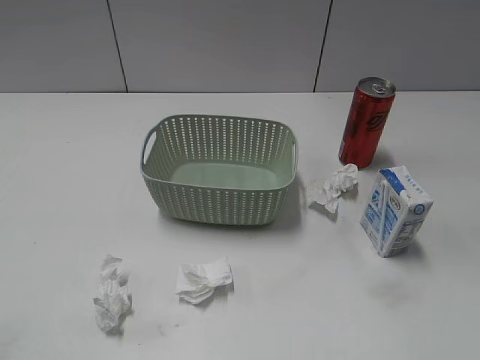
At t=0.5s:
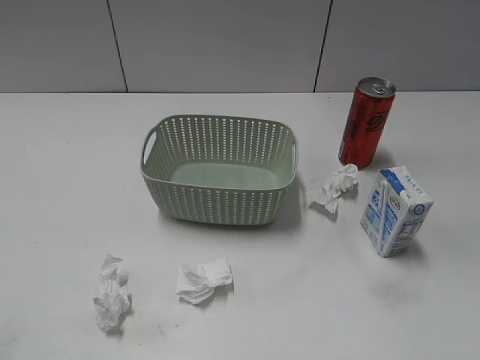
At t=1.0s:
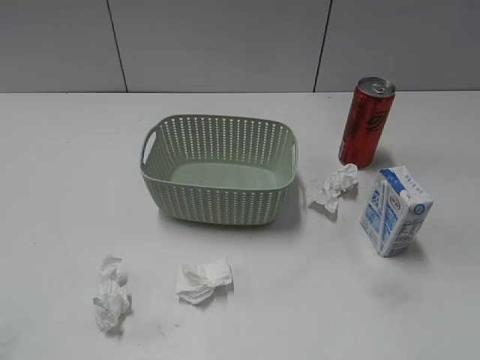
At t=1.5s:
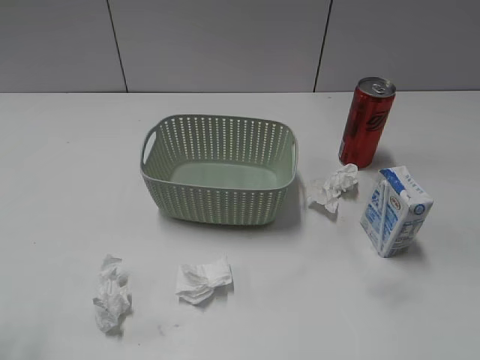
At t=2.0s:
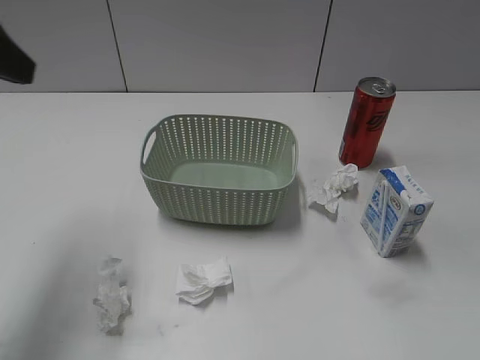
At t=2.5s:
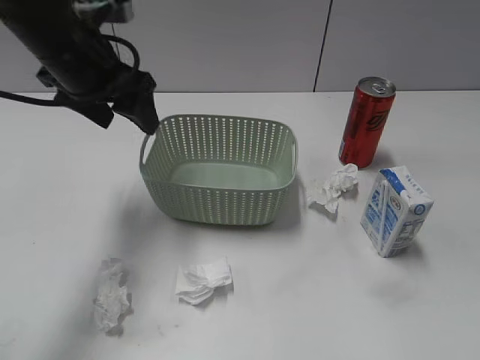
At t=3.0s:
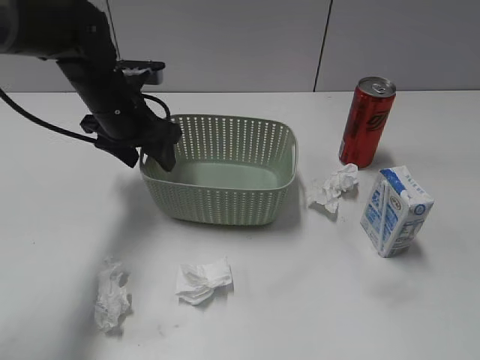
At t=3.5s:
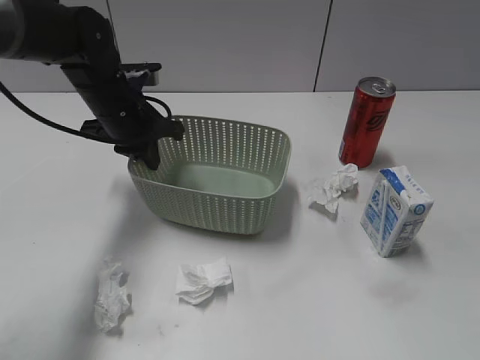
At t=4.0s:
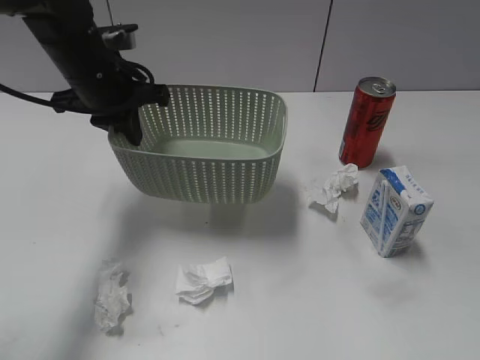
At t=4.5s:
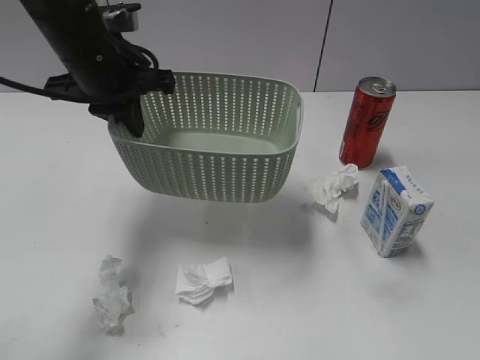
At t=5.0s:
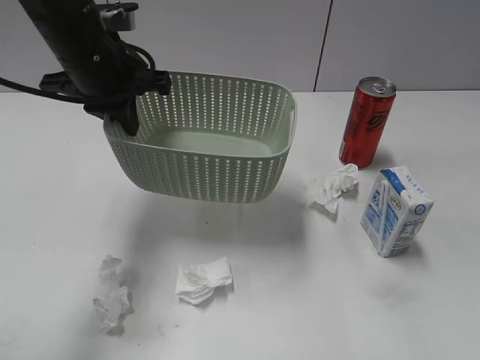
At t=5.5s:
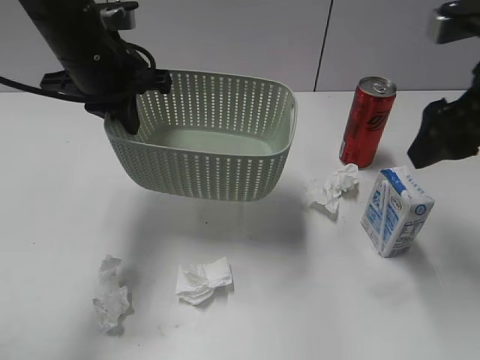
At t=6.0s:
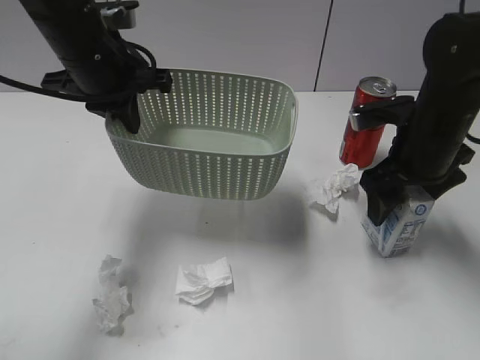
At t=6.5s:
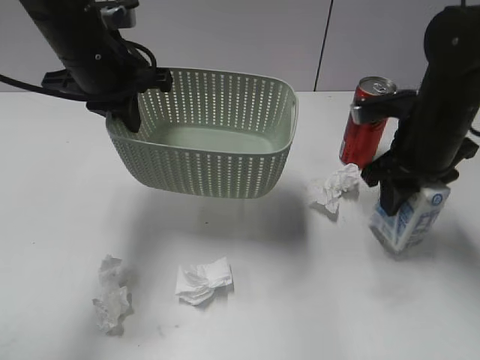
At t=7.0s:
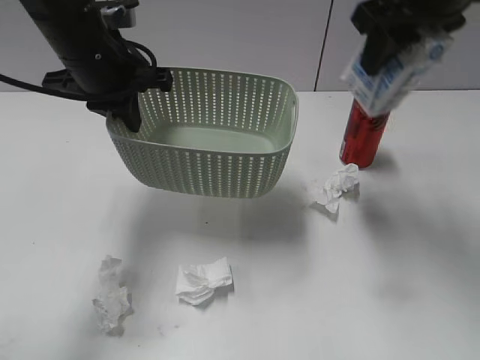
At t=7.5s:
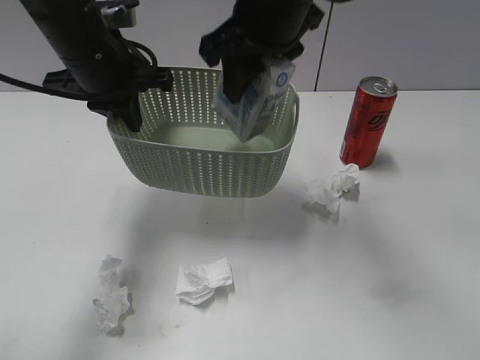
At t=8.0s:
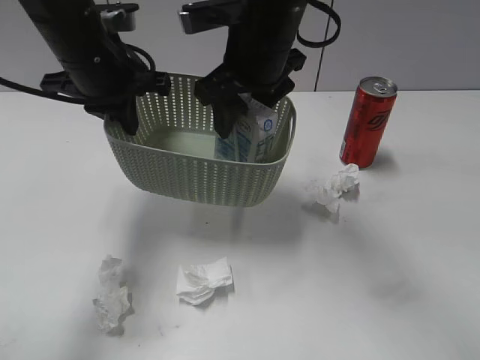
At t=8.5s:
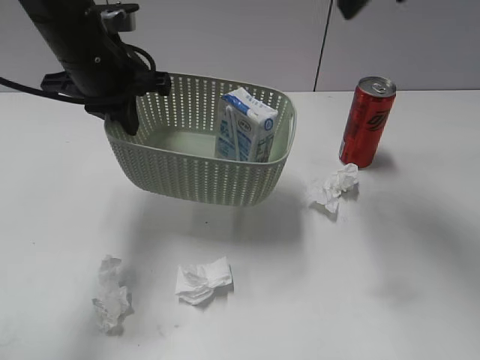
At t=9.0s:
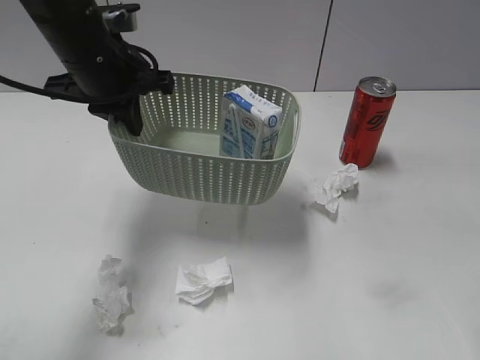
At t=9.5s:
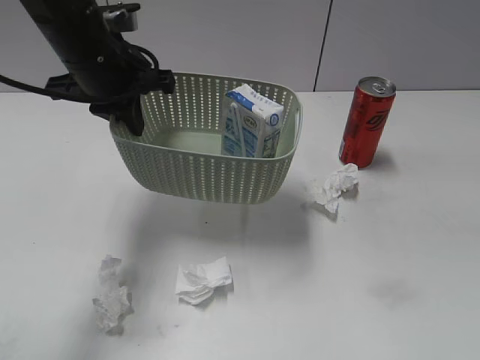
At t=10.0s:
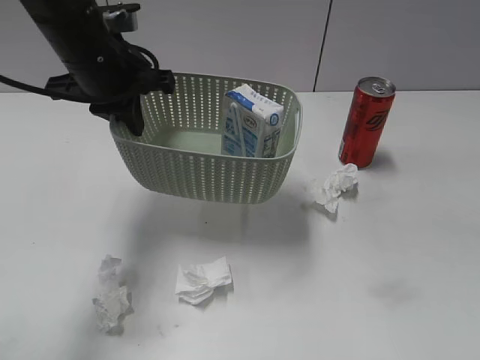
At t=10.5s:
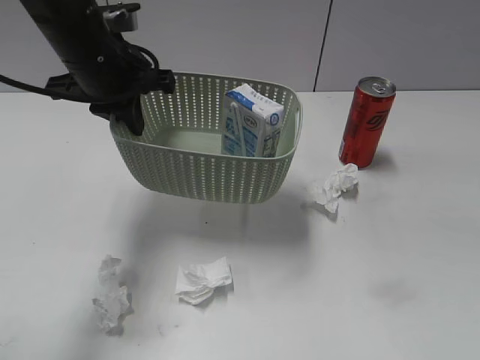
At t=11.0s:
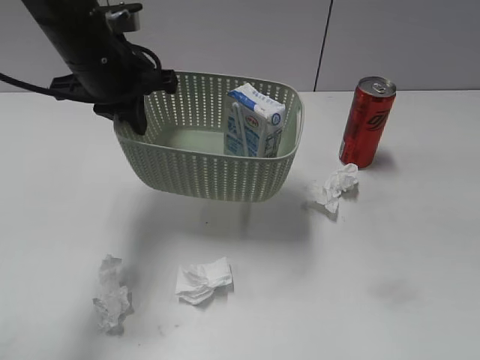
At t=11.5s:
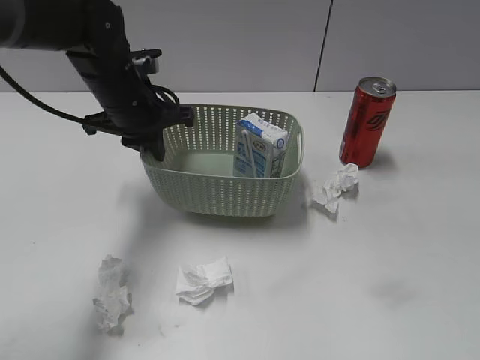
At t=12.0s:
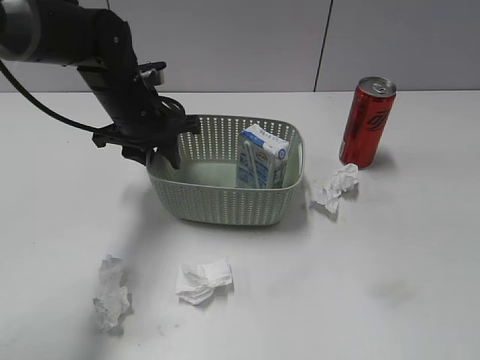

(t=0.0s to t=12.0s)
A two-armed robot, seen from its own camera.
Step, t=2.0s - t=3.0s: Grasp the basket with left gripper.
Step, t=3.5s - t=4.5s: Lift the basket with left gripper.
Step, t=5.0s - t=6.0s: Grasp the milk with right gripper.
Step, t=6.5s - t=8.0s: Place the milk in the basket with right gripper.
t=2.0s - t=4.0s: The left gripper heads forward, downward and to the right, covering roughly 20 cm, and closes up.
t=4.0s - t=6.0s: The right gripper goes about 35 cm forward.
t=6.0s - t=8.0s: The right gripper heads to the left and upward, covering roughly 20 cm, and closes.
t=8.0s - t=10.0s: The right gripper goes some 40 cm backward and to the right.
t=10.0s - t=12.0s: The left gripper moves downward, roughly 10 cm, and opens up.

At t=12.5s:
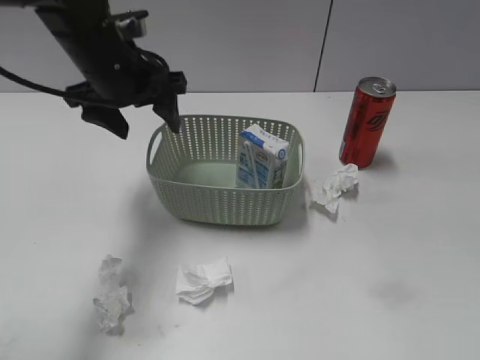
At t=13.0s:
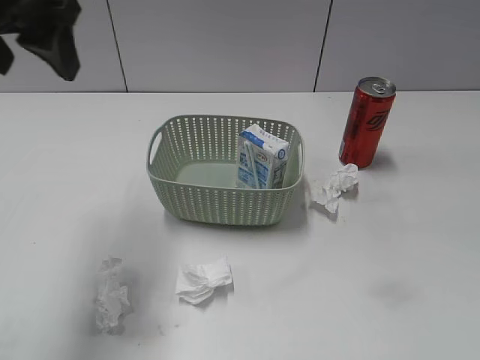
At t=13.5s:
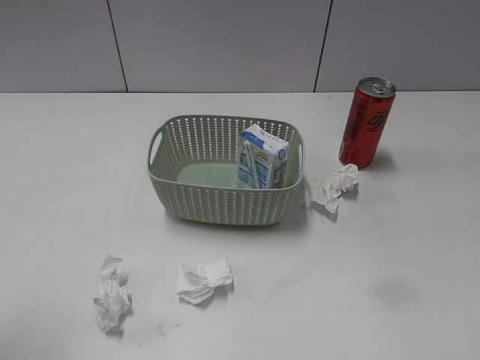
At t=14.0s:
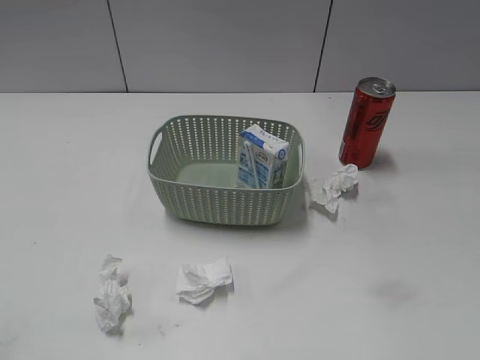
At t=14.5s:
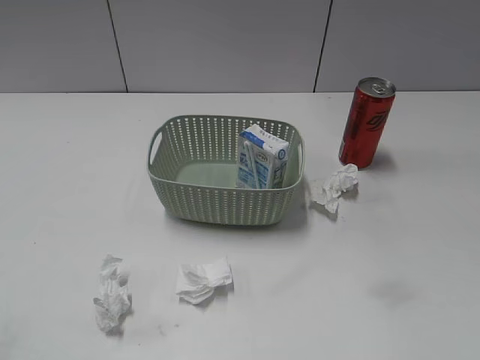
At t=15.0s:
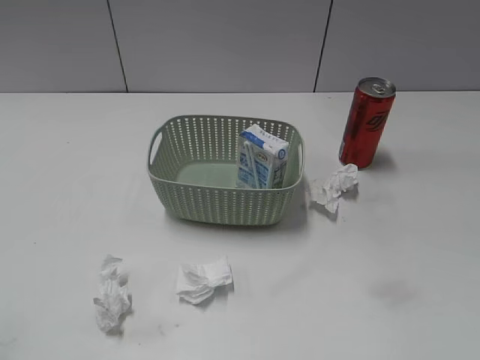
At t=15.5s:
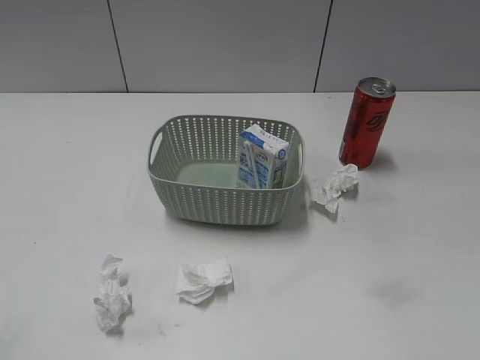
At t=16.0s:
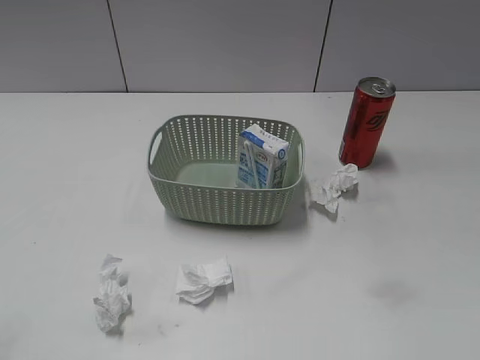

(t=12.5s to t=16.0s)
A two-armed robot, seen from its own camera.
t=12.5s - t=14.5s: The left gripper moves backward and to the left, approximately 40 cm.

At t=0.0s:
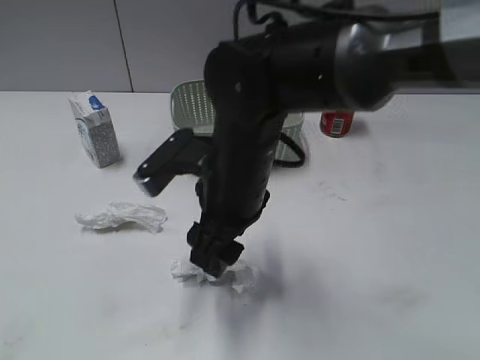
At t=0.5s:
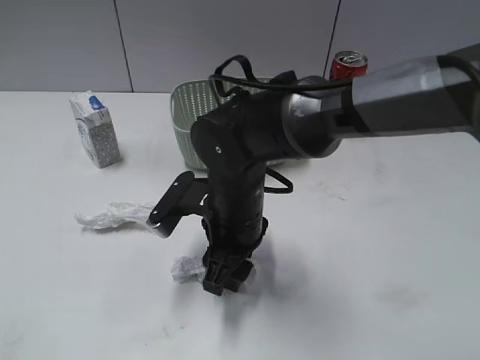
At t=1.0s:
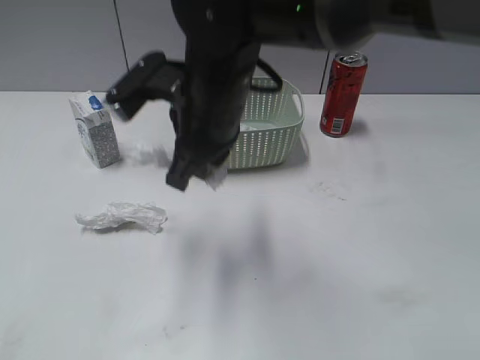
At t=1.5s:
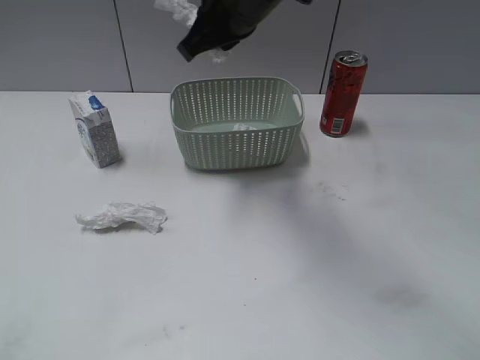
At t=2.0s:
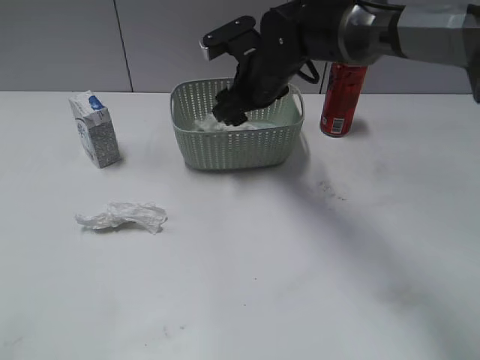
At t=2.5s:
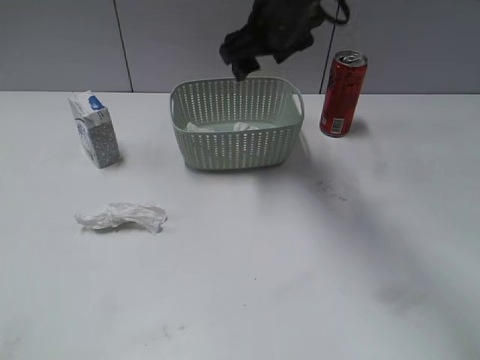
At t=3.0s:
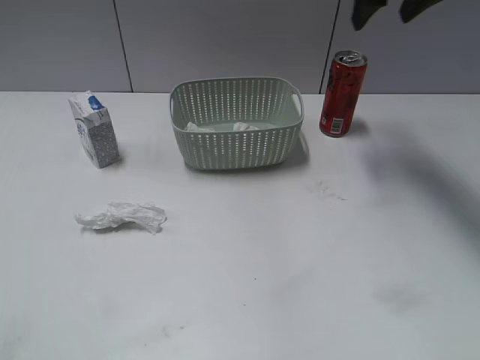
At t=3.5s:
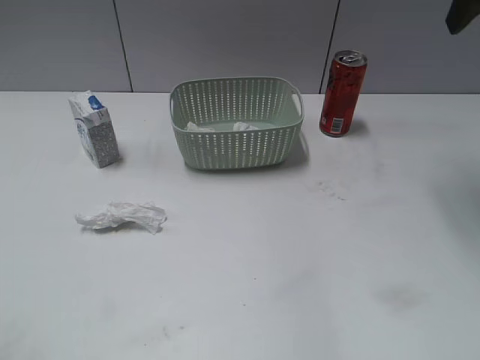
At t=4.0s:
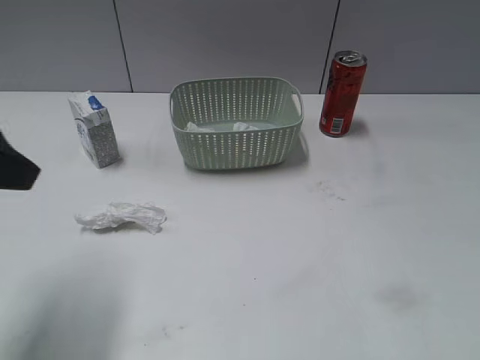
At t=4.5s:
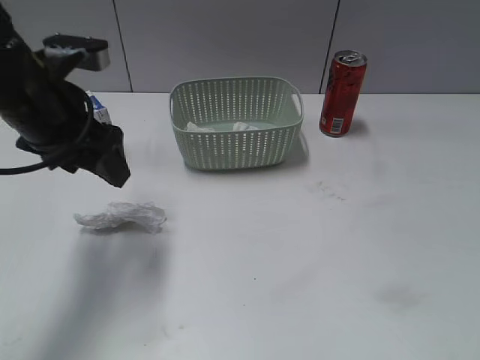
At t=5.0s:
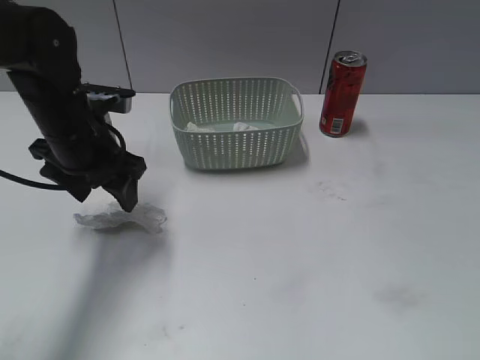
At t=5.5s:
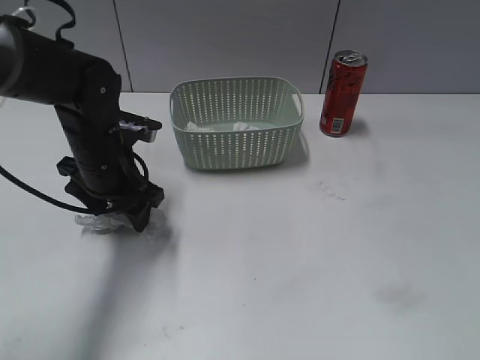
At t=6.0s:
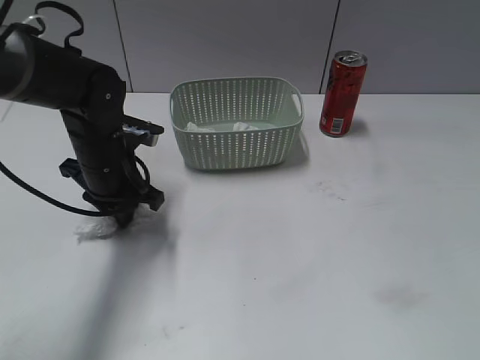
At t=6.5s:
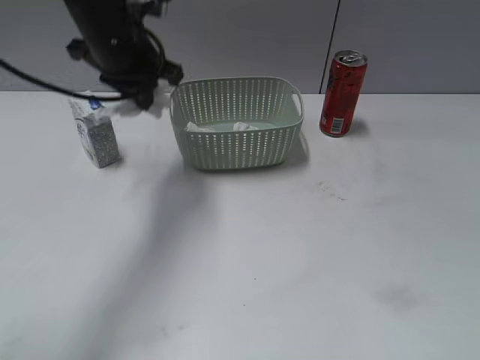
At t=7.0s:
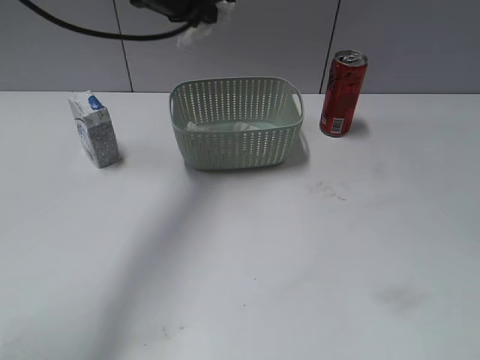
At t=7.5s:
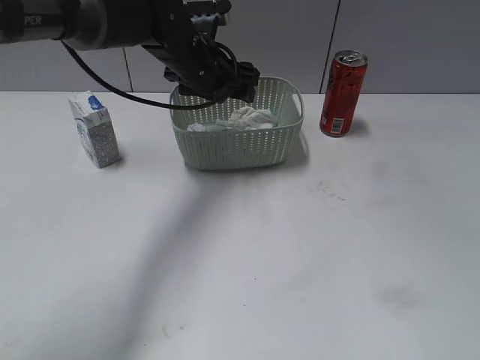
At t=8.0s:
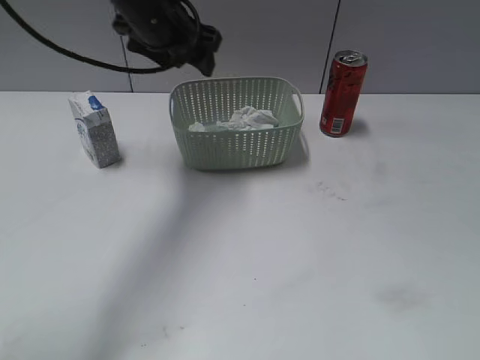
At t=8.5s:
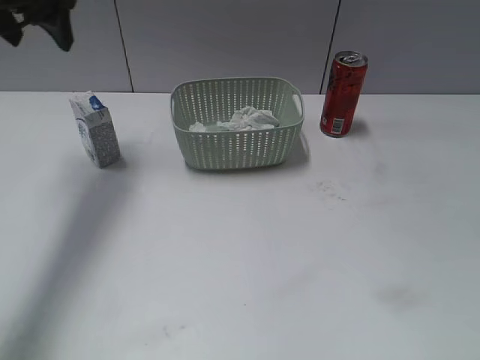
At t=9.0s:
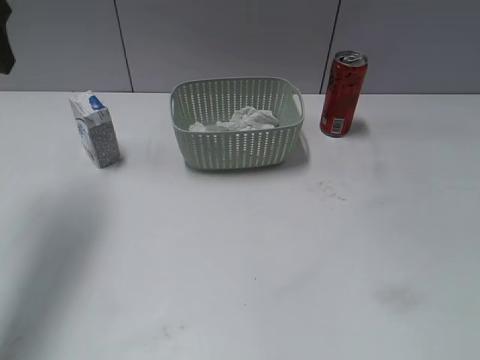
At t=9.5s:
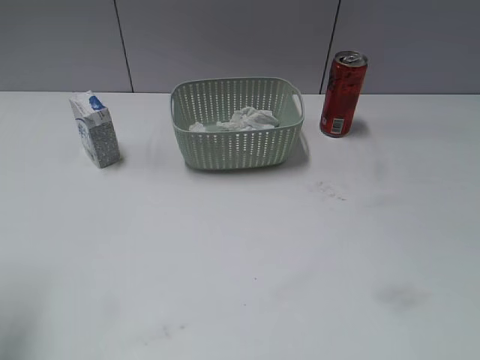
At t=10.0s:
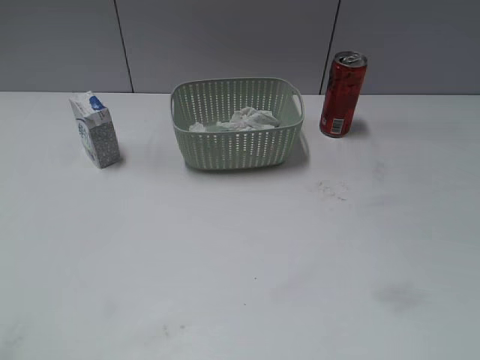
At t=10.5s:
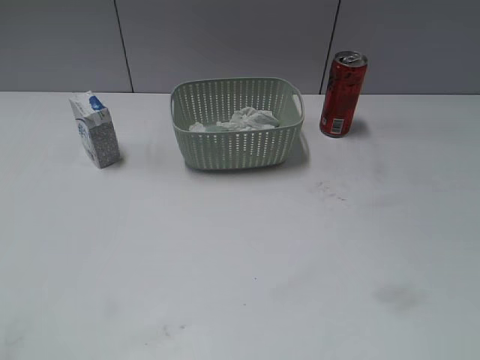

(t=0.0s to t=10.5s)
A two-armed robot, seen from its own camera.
Step, t=0.0s - t=1.0s: Grasp the waste paper with right gripper.
Step, t=1.5s - t=2.0s: Place the waste paper in the basket with right gripper.
Step, t=2.5s - t=6.0s: Grasp the waste paper with left gripper.
Step, t=6.5s - t=7.5s: Place the waste paper in the basket with left gripper.
t=0.0s - t=2.0s: The right gripper shifts about 20 cm forward and upward, and closes, then reopens.
t=2.0s - t=4.0s: The left gripper goes some 30 cm forward and to the right. Meanwhile the right gripper travels backward and to the right by roughly 40 cm.
t=4.0s - t=6.5s: The right gripper moves backward and downward, about 10 cm. The left gripper moves forward and to the right, some 20 cm, travels downward and back again, approximately 15 cm each way, and closes.
t=6.5s - t=8.5s: The left gripper heads to the left, covering about 15 cm, and opens its fingers.
t=8.5s - t=10.5s: The left gripper goes roughly 40 cm backward.
